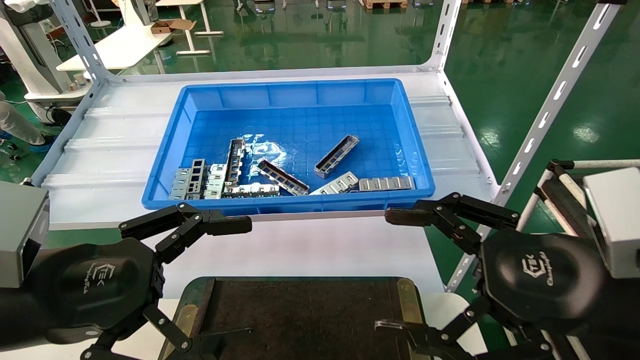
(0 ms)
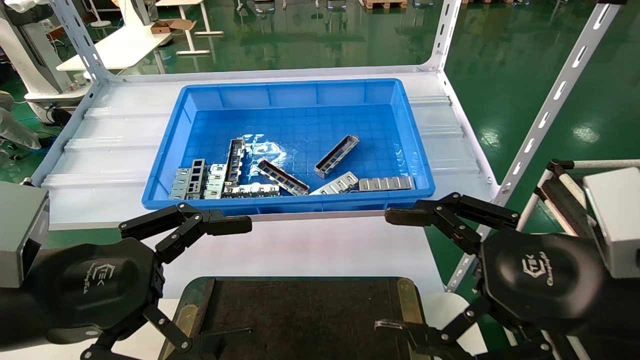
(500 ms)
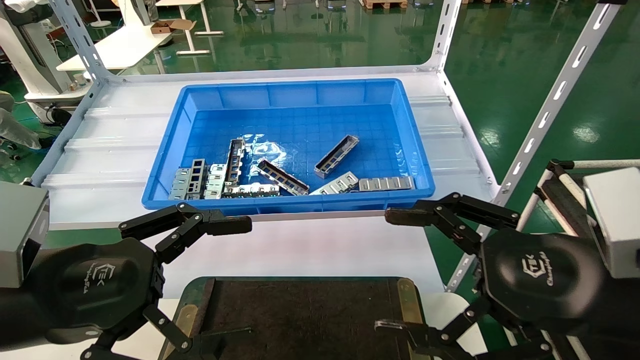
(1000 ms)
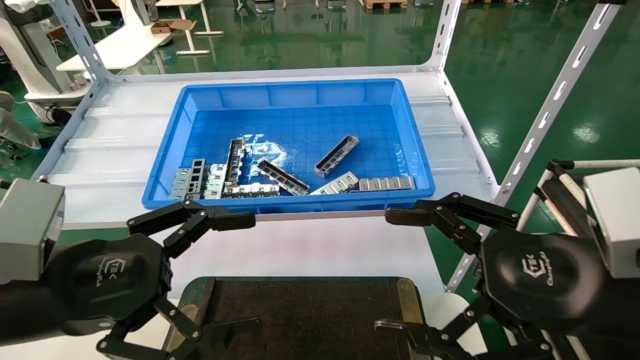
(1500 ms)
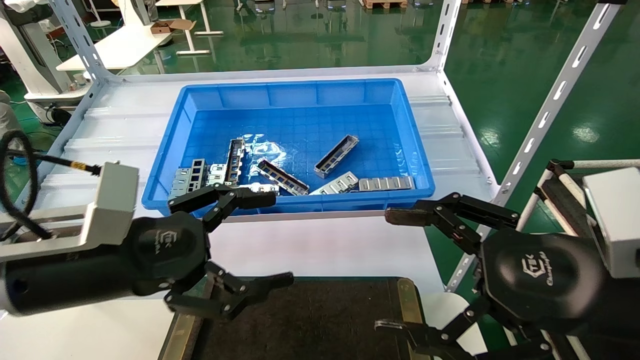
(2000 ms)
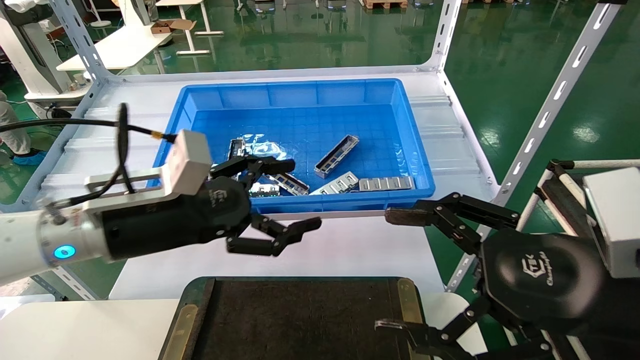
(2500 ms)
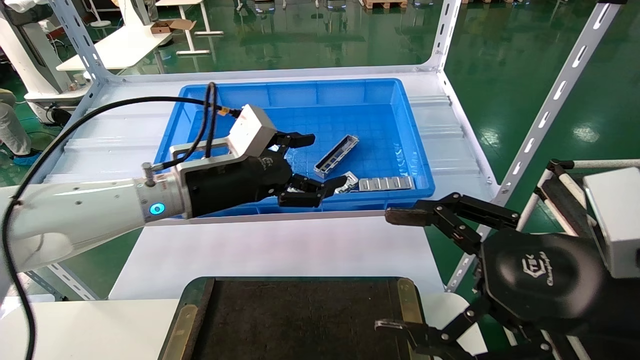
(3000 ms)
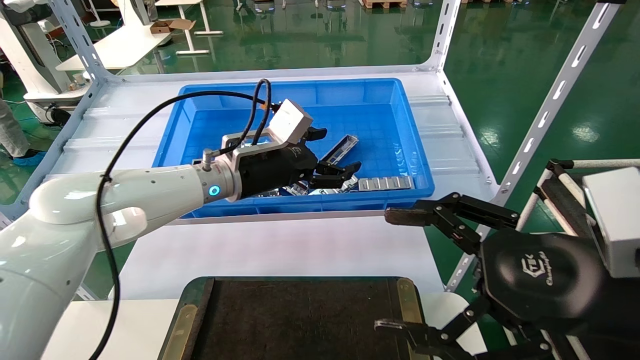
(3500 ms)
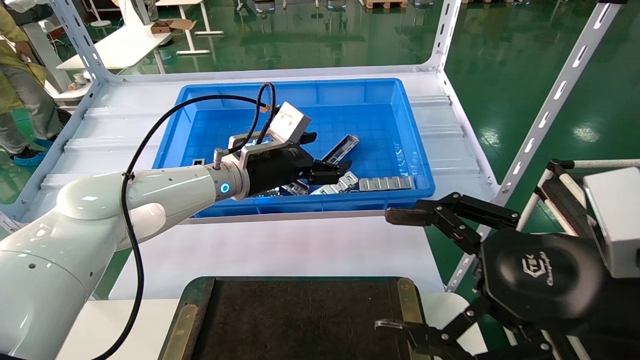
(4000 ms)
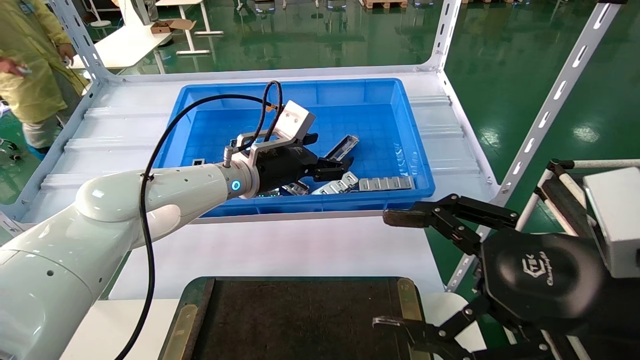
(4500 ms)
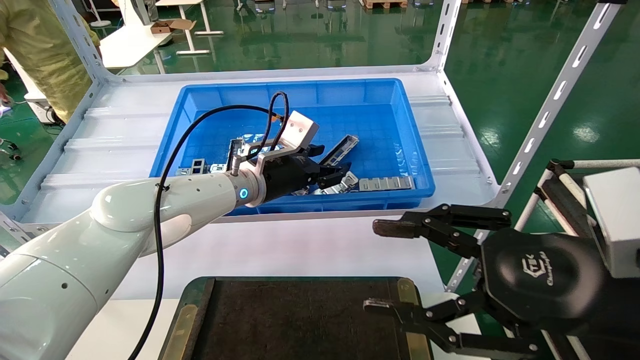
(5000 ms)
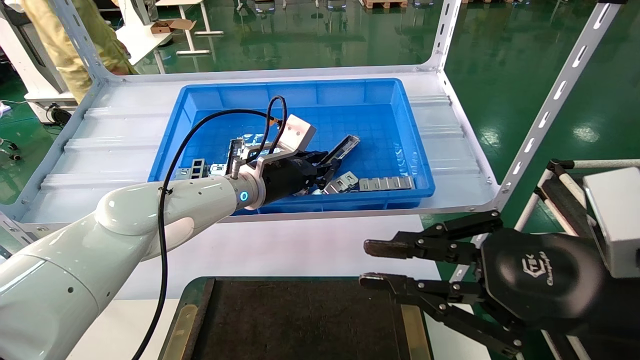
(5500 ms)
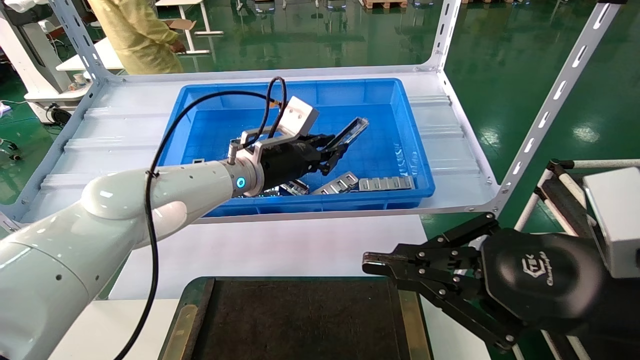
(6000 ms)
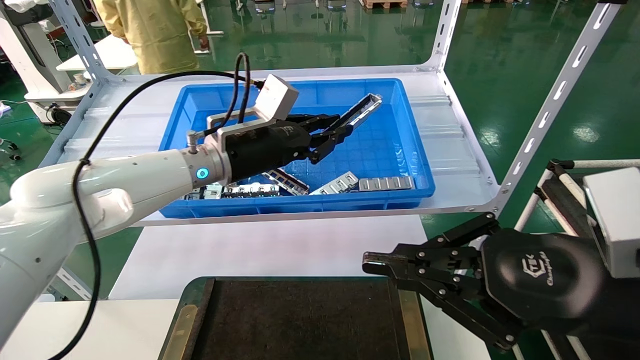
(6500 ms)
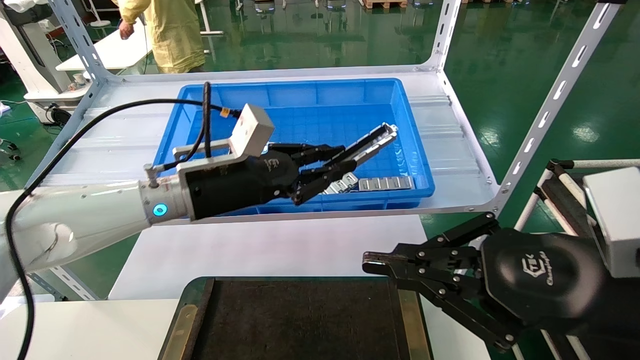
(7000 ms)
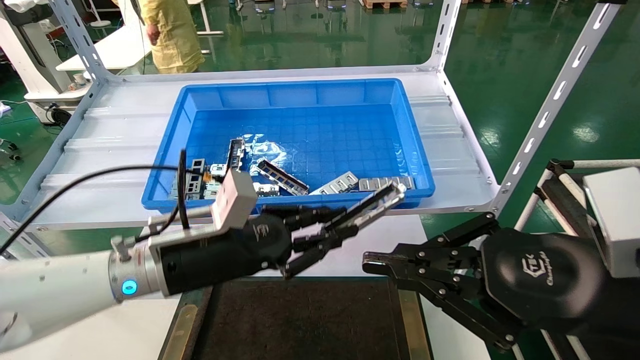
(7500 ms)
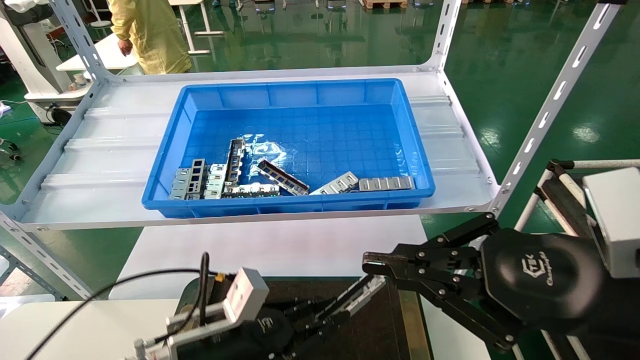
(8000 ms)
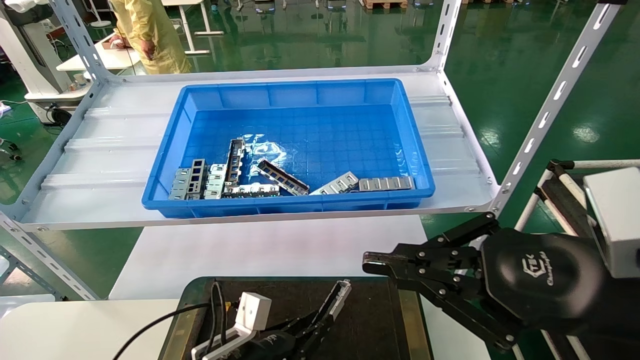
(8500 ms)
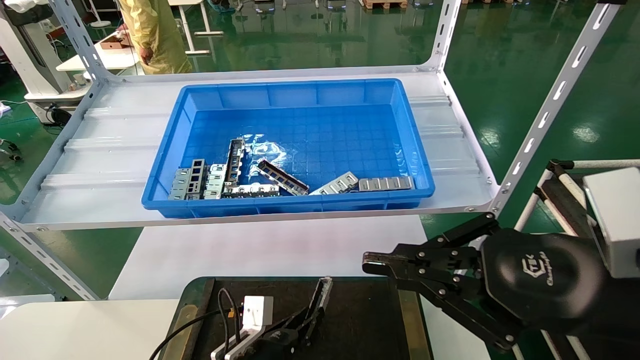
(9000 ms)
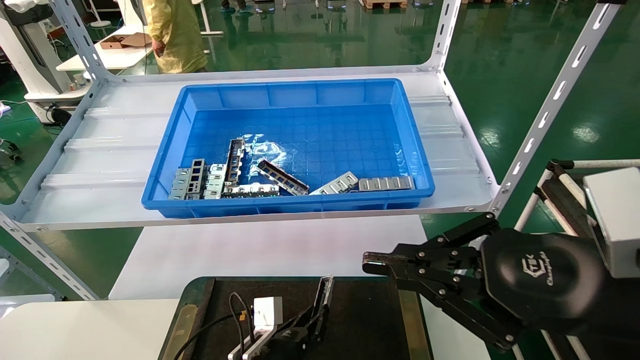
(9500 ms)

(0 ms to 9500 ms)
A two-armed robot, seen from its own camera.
Task of the whole recording: Grasp the part with one hand and place it on the black container.
Step, 1500 ms - 5000 ms: Pick up the front USB bracket from the feeding area.
0 ms - 2000 ms: The left gripper goes about 5 cm forward.
2000 ms - 4000 ms: The left gripper goes some 25 cm forward and to the right.
4000 ms - 5500 ms: The left gripper closes up. Meanwhile the right gripper closes.
5500 ms - 7500 ms: The left gripper is displaced backward and to the left by some 15 cm.
7500 ms - 9500 ms: The left gripper heads downward, covering roughly 25 cm.

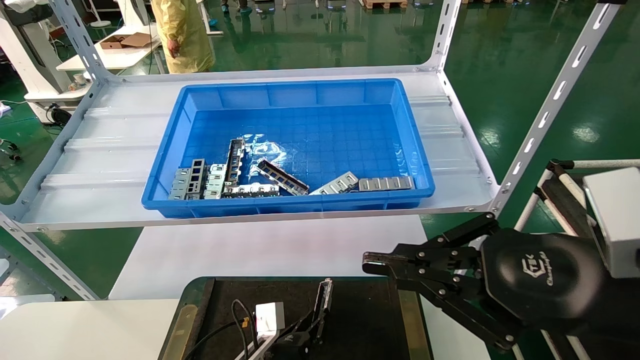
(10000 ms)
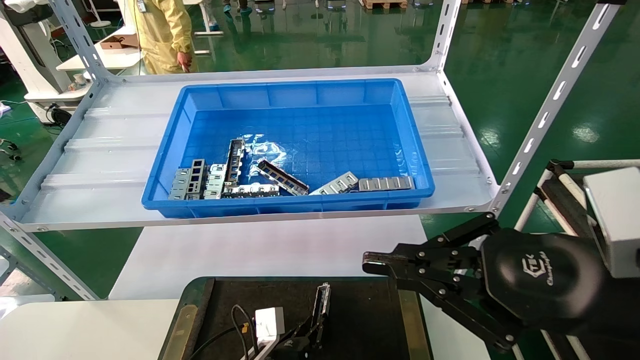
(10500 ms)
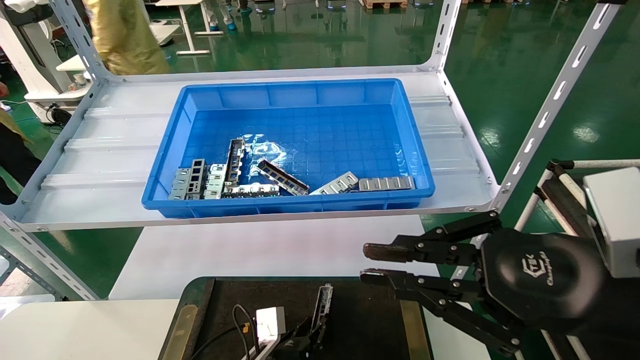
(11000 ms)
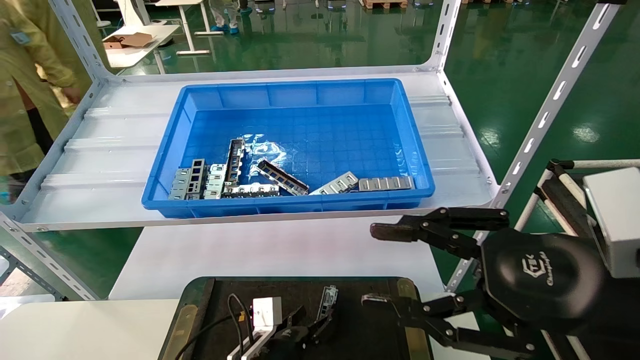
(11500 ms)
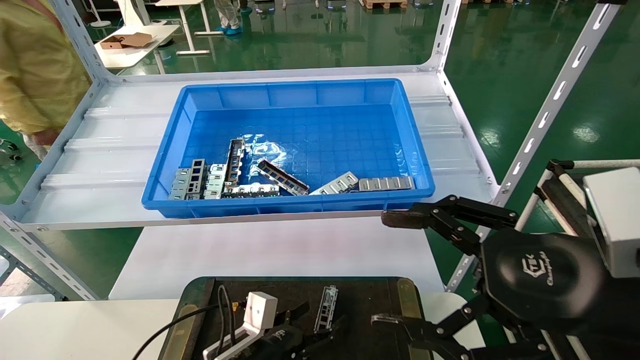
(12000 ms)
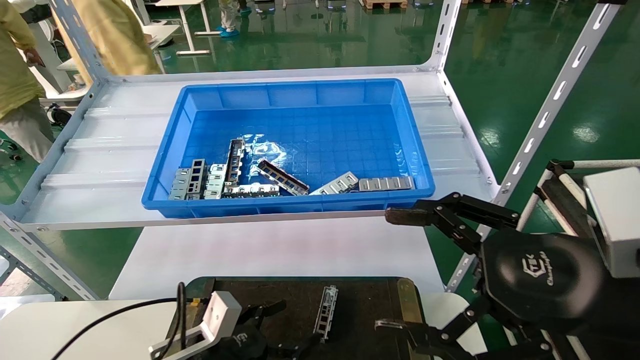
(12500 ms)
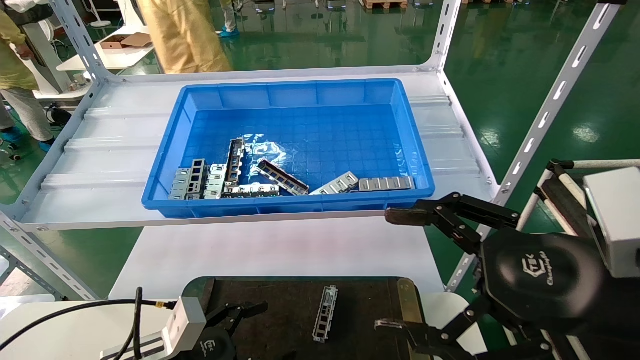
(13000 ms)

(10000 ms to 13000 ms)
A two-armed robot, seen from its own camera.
Task of the whole recording: Grasp the part with one hand and place it on the black container.
10000 ms - 11500 ms: The left gripper opens up. The right gripper opens up.
11500 ms - 13000 ms: The right gripper opens its fingers. Meanwhile the left gripper travels to the left, upward and backward by some 20 cm, and opens up.
